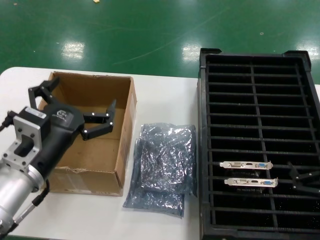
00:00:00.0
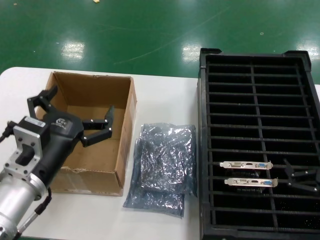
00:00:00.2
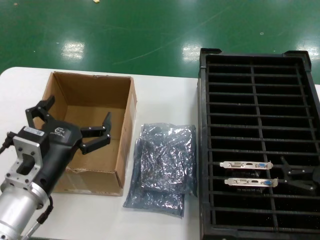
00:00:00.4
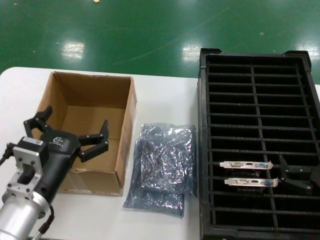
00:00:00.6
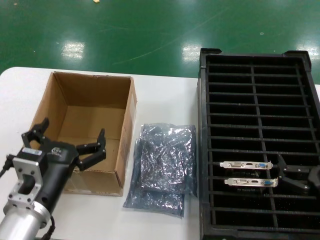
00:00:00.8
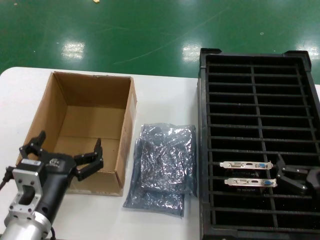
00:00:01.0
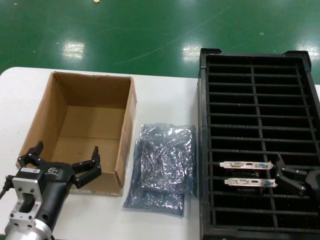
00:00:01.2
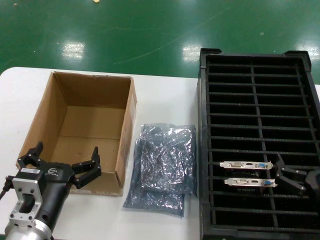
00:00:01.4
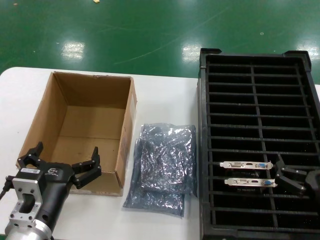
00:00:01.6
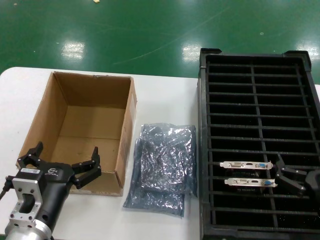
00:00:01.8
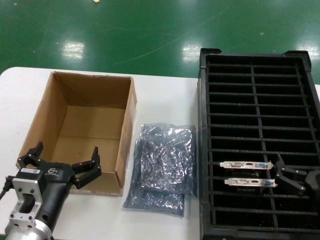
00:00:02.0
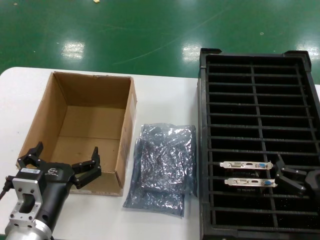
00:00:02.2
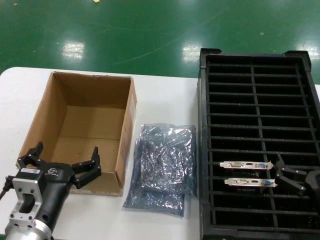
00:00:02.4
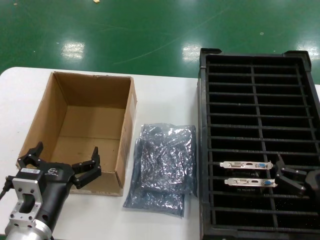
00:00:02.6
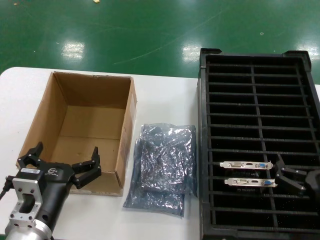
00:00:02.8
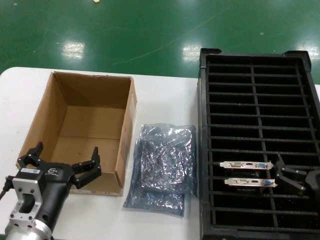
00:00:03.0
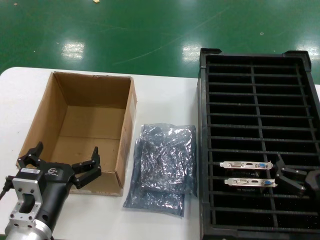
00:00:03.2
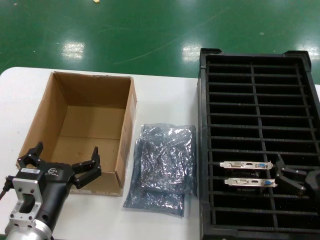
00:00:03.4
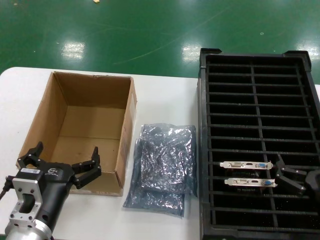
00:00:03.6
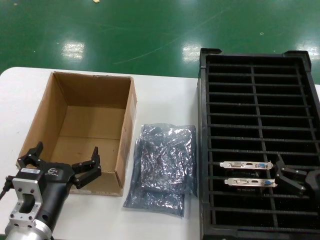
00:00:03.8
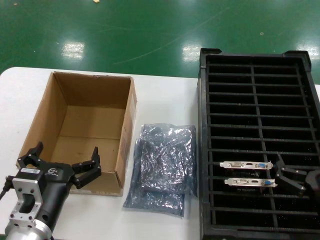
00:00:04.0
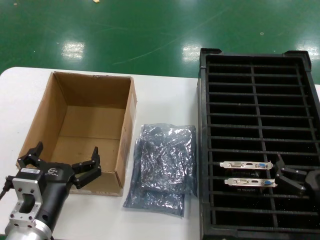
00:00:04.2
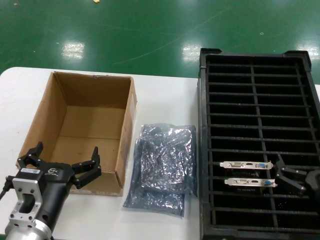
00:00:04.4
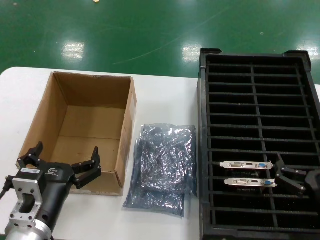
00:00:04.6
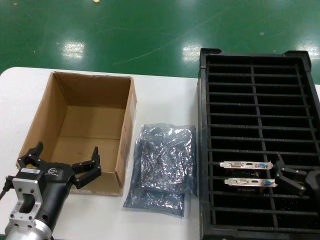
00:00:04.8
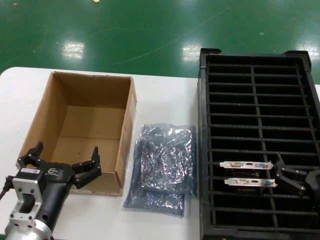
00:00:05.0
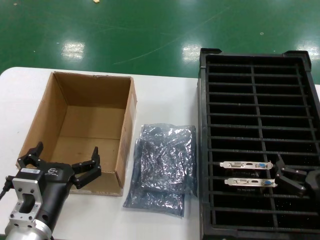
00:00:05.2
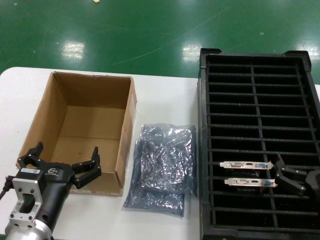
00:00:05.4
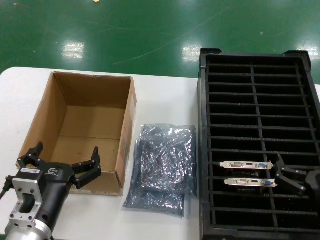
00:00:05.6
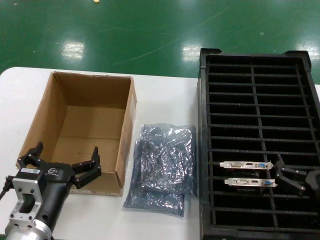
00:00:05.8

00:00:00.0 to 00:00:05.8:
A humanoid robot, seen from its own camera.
Task of the whole recording: take out graphics card from box remove packaging put into black container.
00:00:00.0 to 00:00:01.4: The right hand moves to the left, roughly 5 cm, while the left hand moves downward, about 10 cm.
00:00:01.4 to 00:00:05.8: Both hands stay about where they are.
